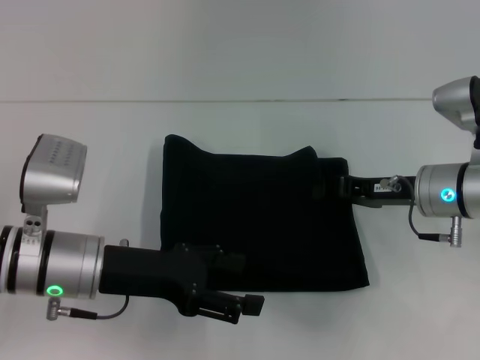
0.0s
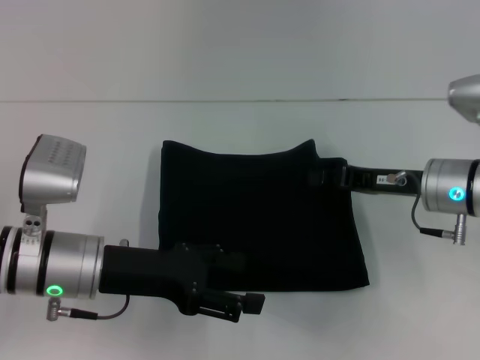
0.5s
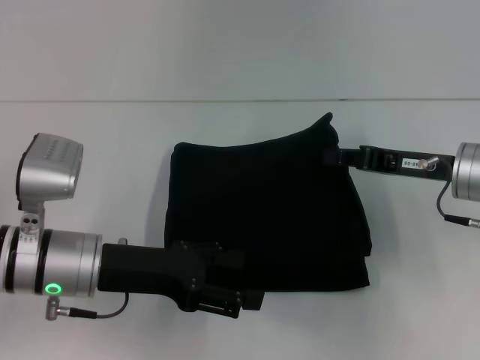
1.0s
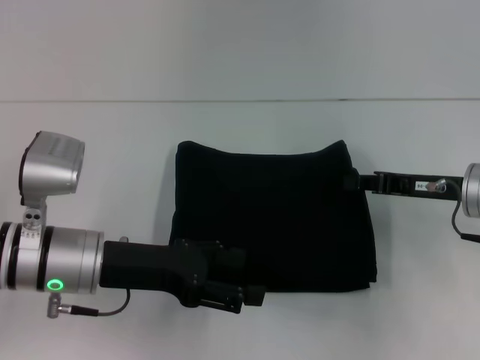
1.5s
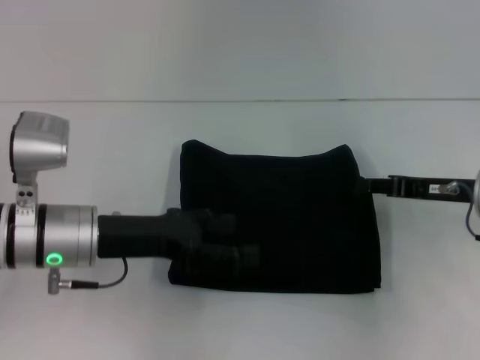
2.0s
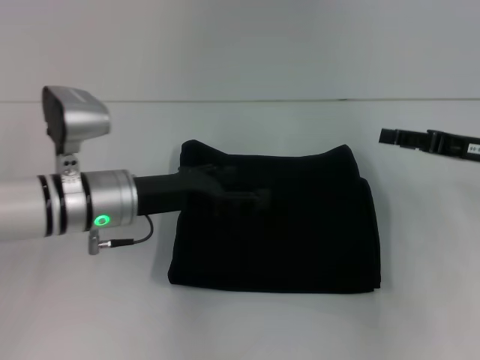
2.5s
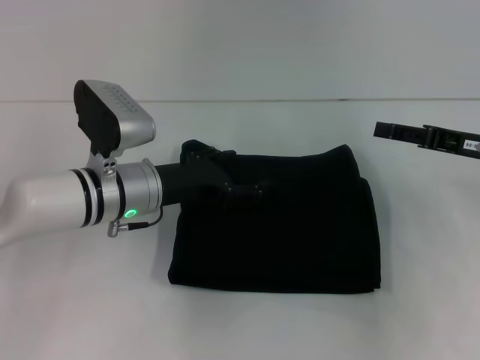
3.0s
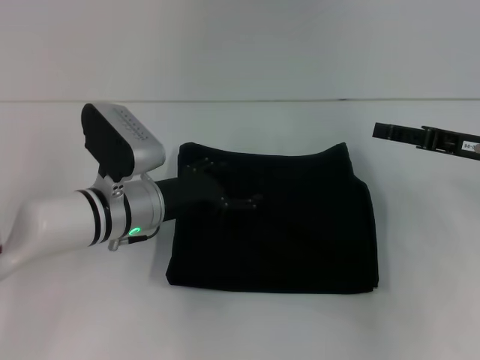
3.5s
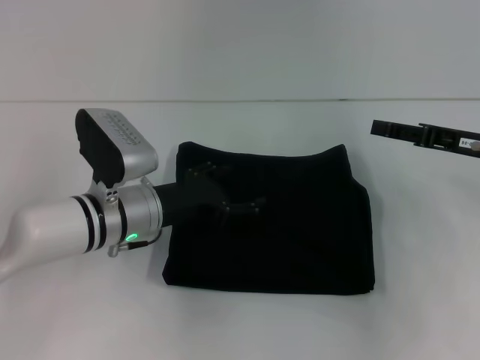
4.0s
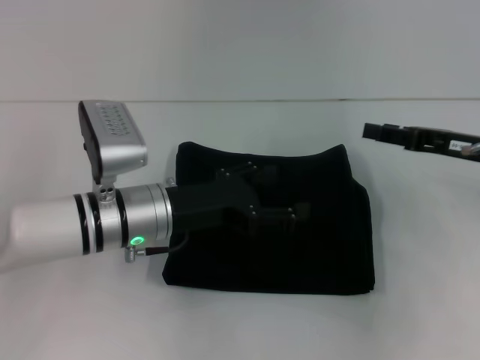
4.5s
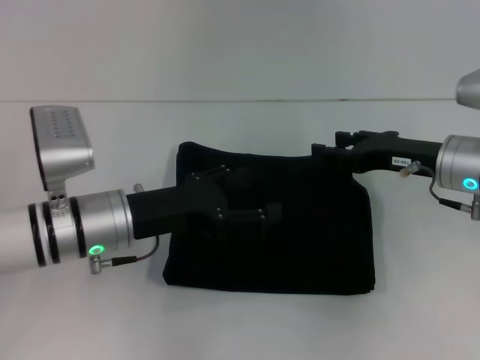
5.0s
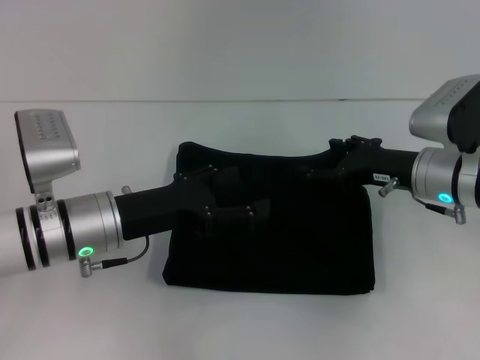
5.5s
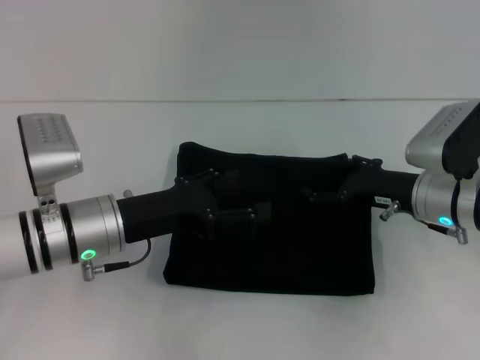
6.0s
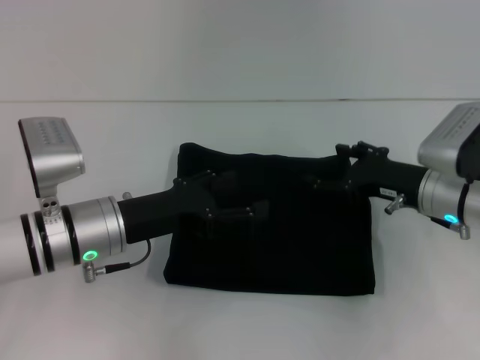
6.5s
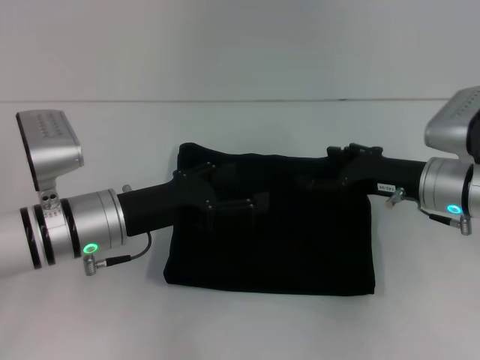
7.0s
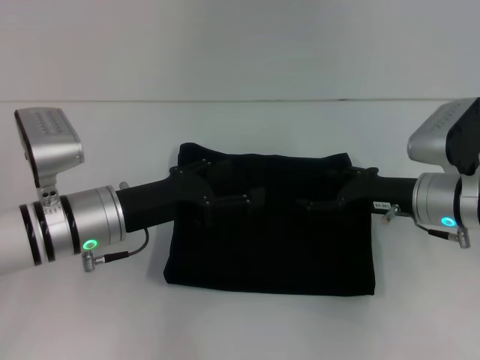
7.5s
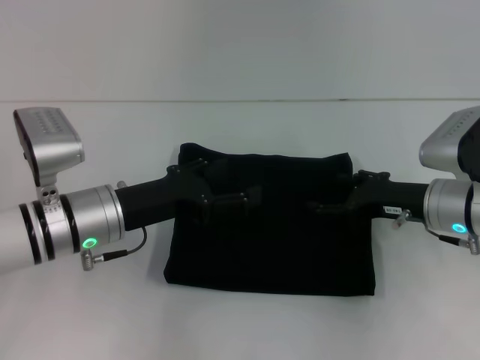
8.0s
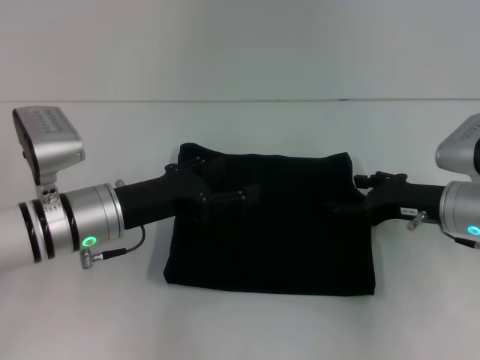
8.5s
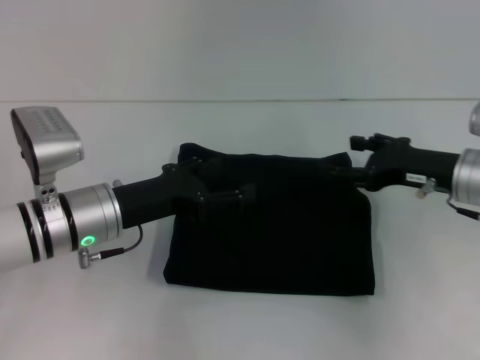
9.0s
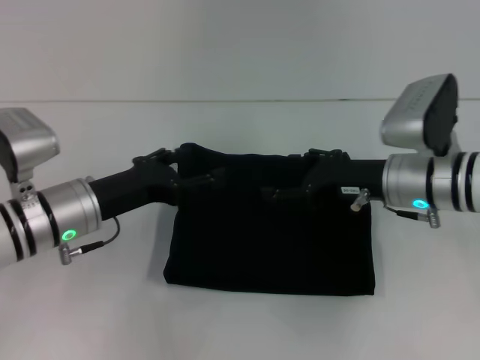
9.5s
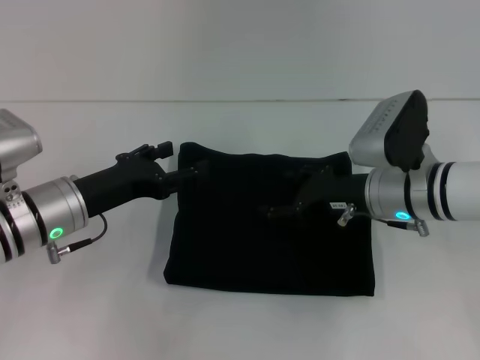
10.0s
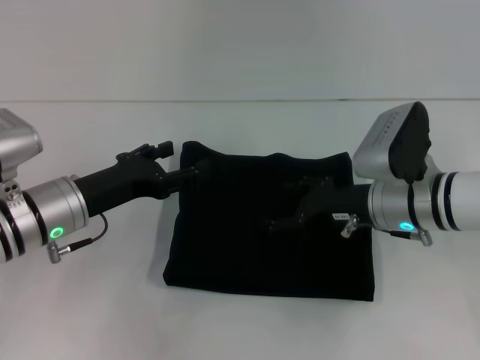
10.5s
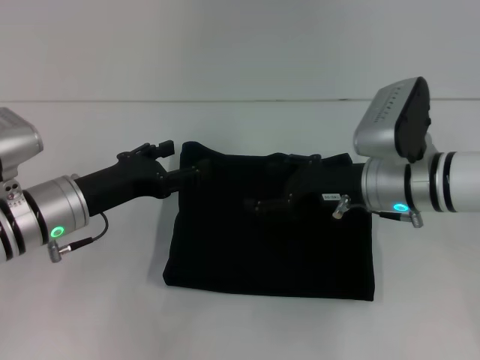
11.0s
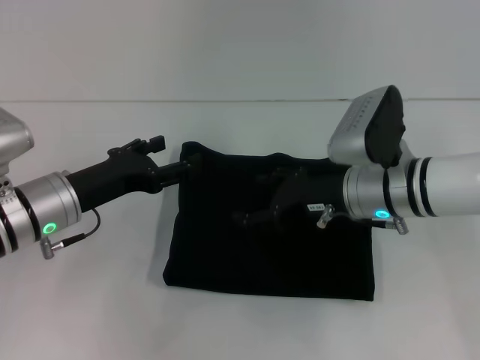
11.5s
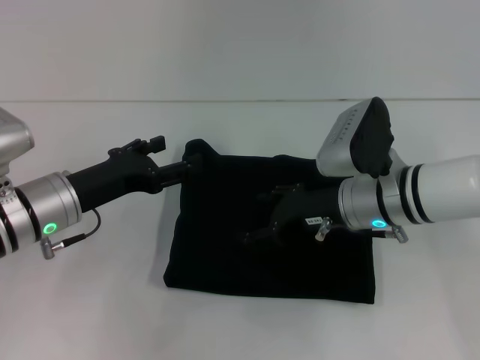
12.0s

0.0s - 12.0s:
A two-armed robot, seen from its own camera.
0.0s - 2.0s: The right gripper travels to the right by about 5 cm.
2.0s - 4.0s: The left gripper shifts by roughly 10 cm, while the right gripper opens its fingers.
4.0s - 6.0s: The right gripper travels to the left and downward by roughly 10 cm, while the left gripper ends up some 5 cm from where it was.
6.0s - 8.0s: The grippers stay close to where they were, moving slightly.
8.0s - 10.0s: The right gripper moves to the left, some 5 cm.
10.0s - 12.0s: There are only small adjustments of the grippers.

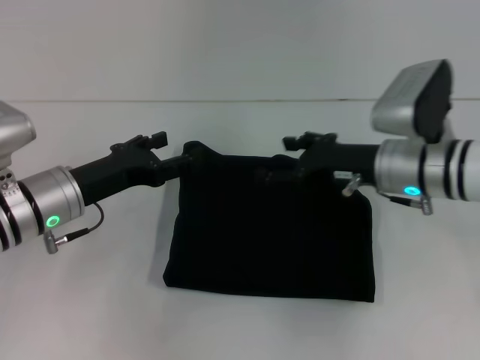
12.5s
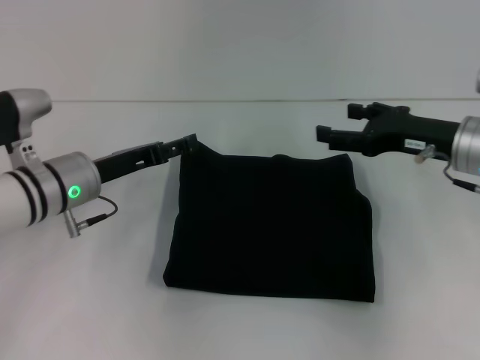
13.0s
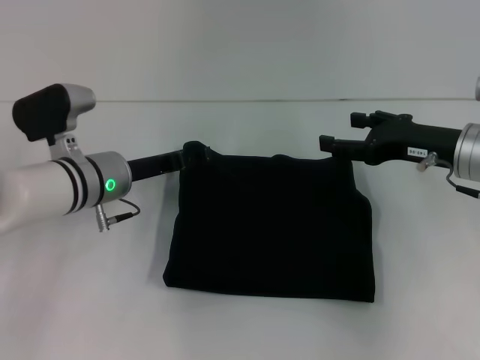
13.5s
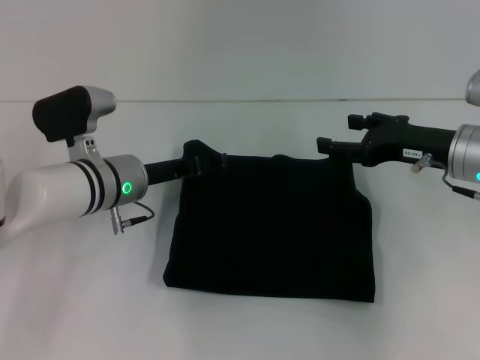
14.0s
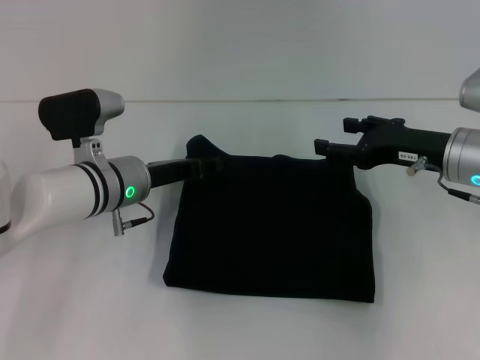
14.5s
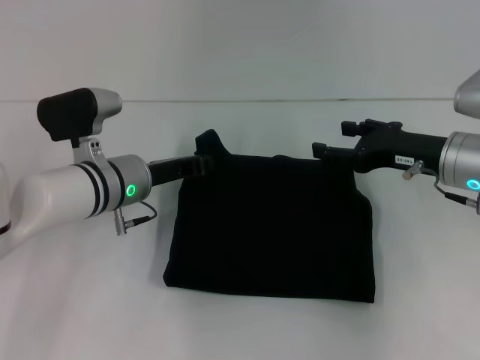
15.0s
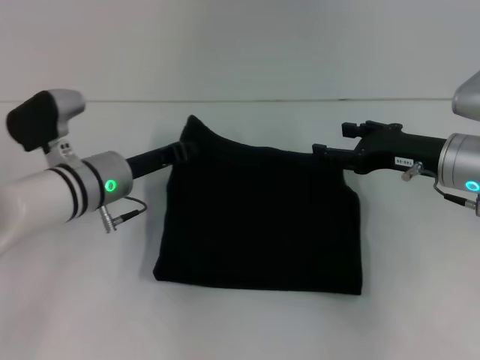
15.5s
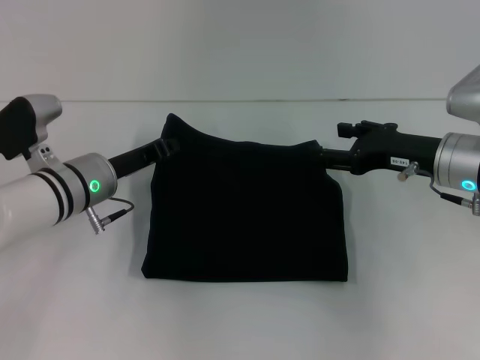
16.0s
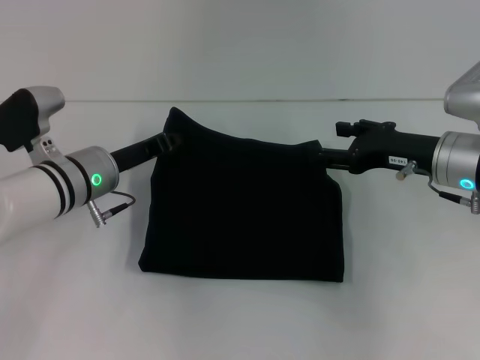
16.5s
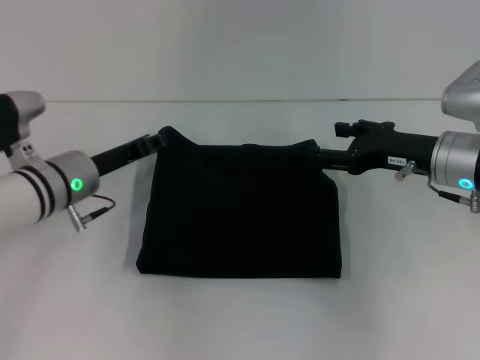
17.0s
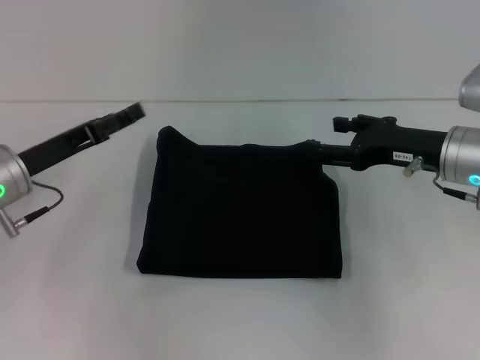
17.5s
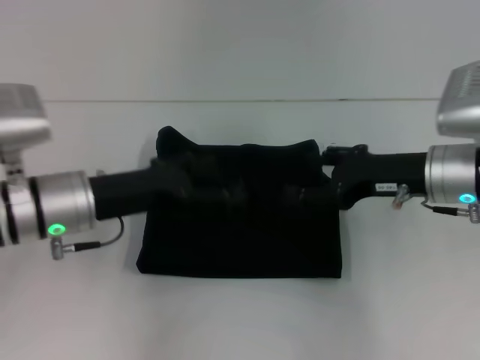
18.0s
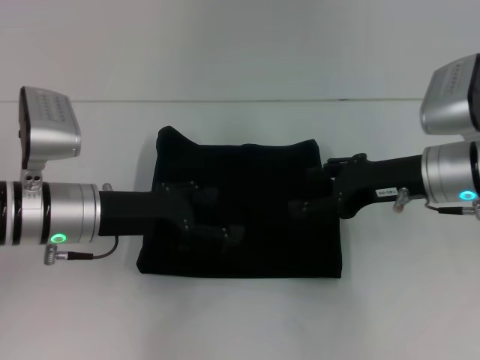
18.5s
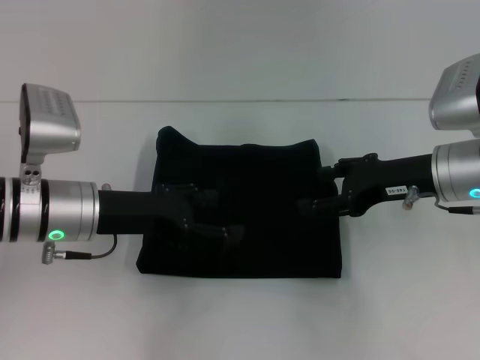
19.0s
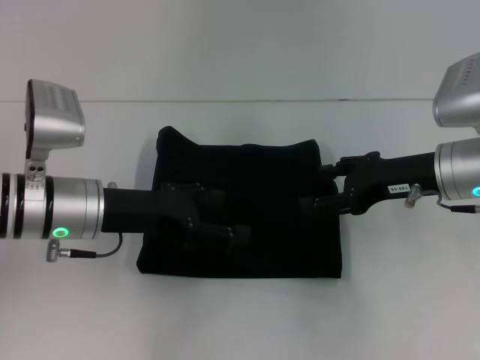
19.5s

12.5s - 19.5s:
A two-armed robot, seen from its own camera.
12.5s - 14.5s: The right gripper travels to the right by about 5 cm. The left gripper travels to the right and forward by approximately 10 cm.
14.5s - 16.0s: The left gripper closes.
16.0s - 17.5s: The left gripper moves to the left, some 5 cm, and opens its fingers.
17.5s - 19.5s: The left gripper moves to the right, approximately 5 cm, and opens its fingers.

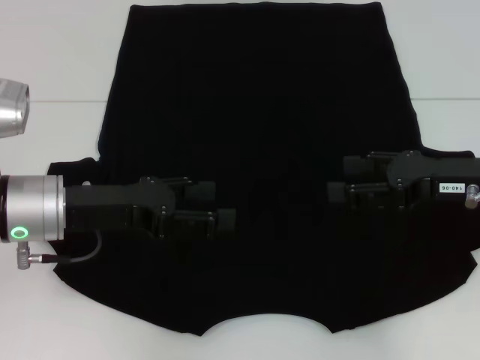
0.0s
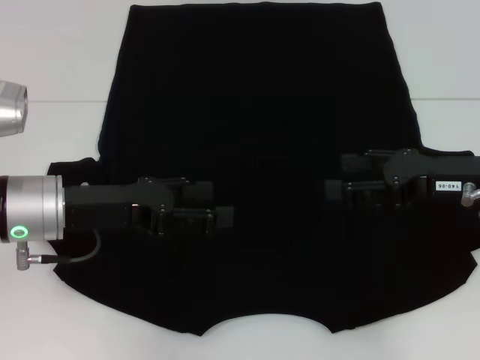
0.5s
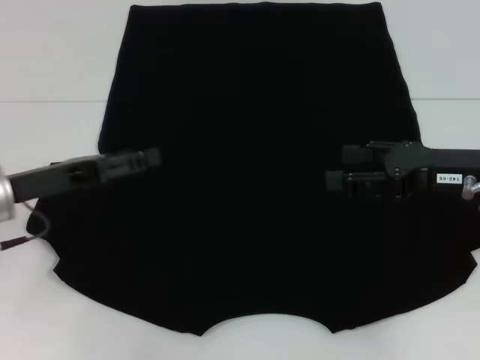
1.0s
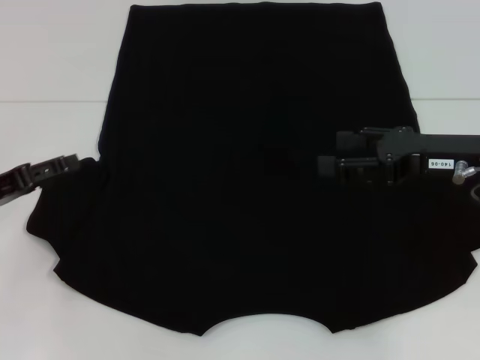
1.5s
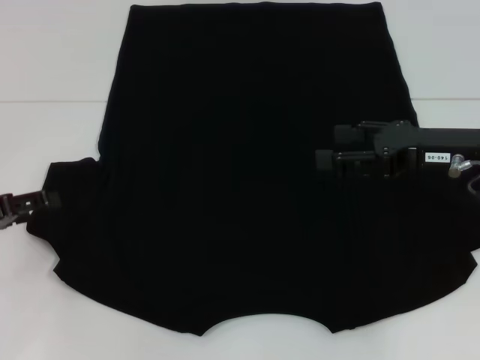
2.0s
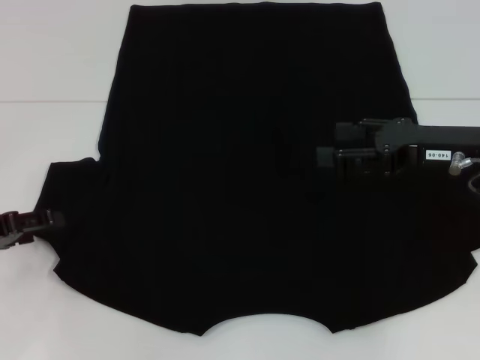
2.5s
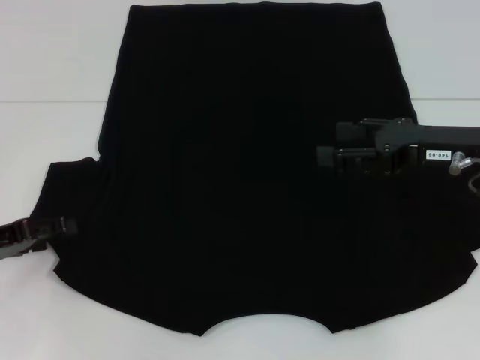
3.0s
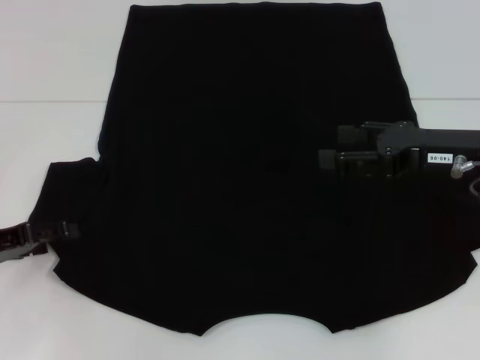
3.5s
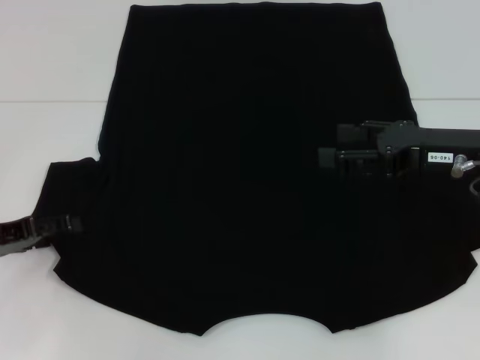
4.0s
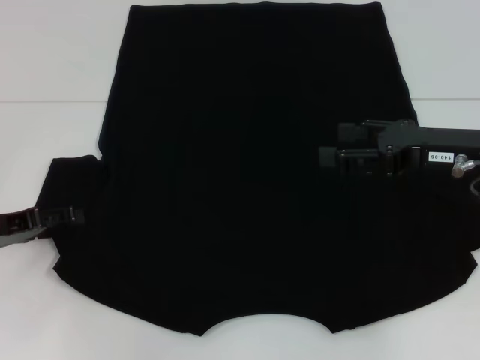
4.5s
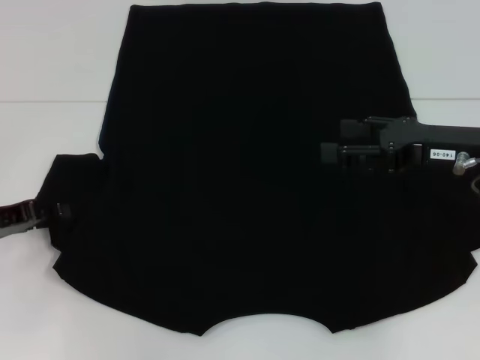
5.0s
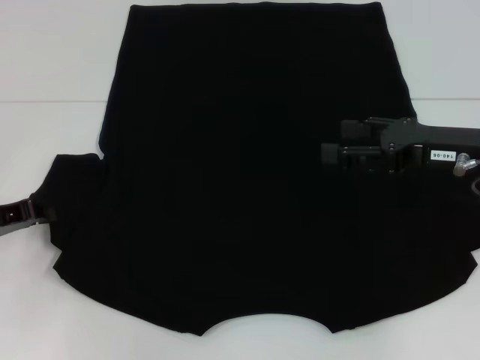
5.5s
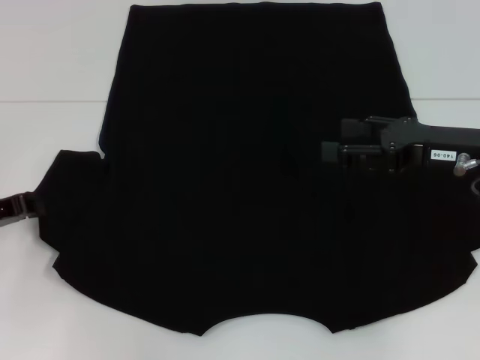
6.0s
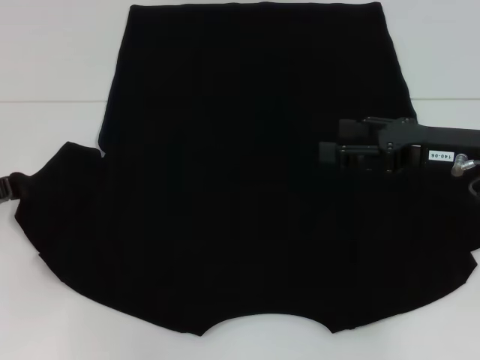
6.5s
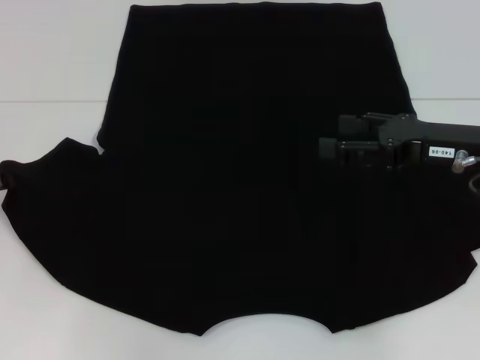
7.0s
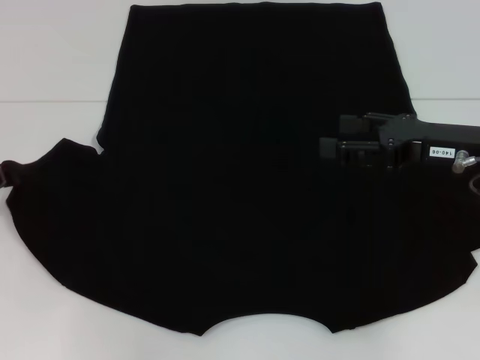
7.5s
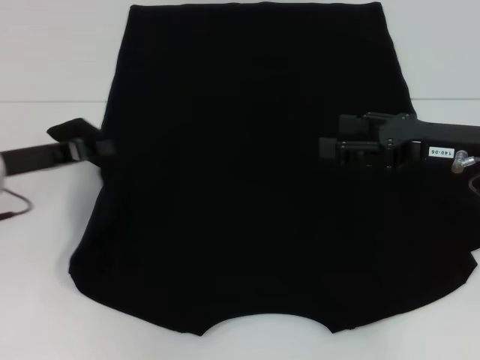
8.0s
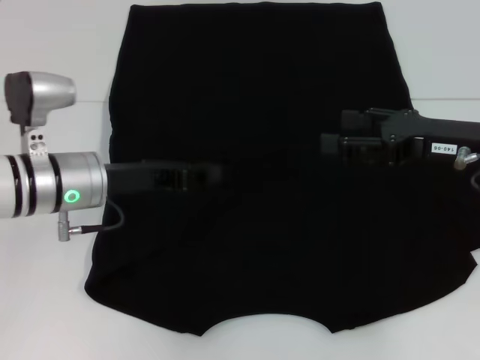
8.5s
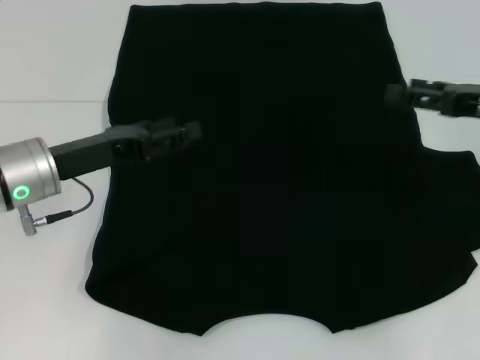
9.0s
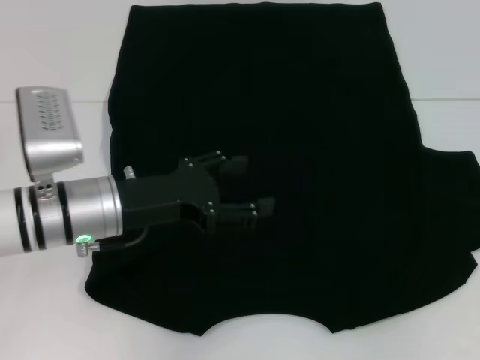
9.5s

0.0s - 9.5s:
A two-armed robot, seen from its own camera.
Step, 0.0s - 9.0s: Fold the bottom left sleeve with your left hand.
0.0s - 2.0s: The left gripper goes about 15 cm to the left.
2.0s - 4.0s: The grippers move only a little.
4.0s - 5.5s: The left gripper closes its fingers.
5.5s - 7.5s: There are only small adjustments of the grippers.
7.5s - 9.5s: Both grippers move to the right, approximately 15 cm. The left gripper opens.
